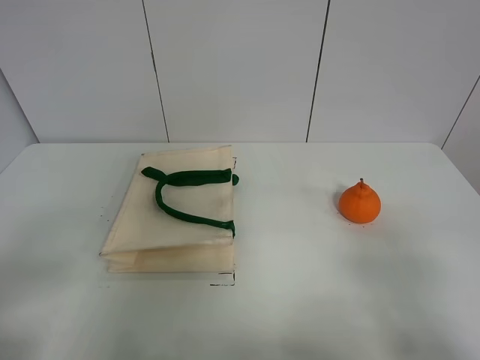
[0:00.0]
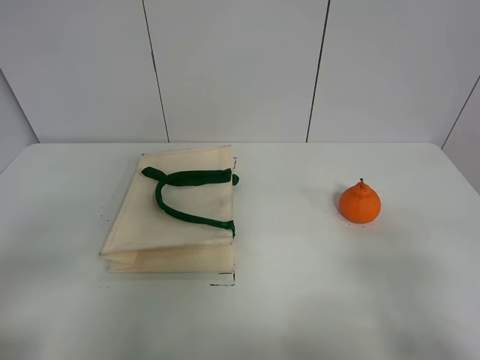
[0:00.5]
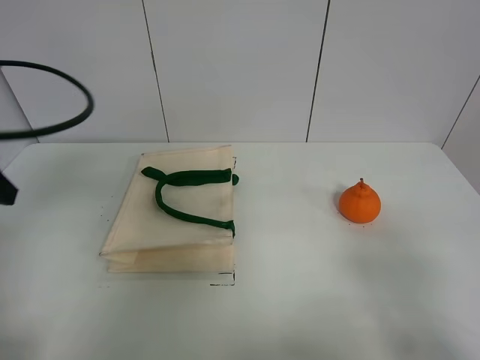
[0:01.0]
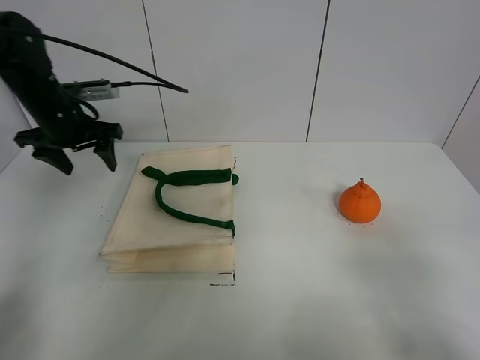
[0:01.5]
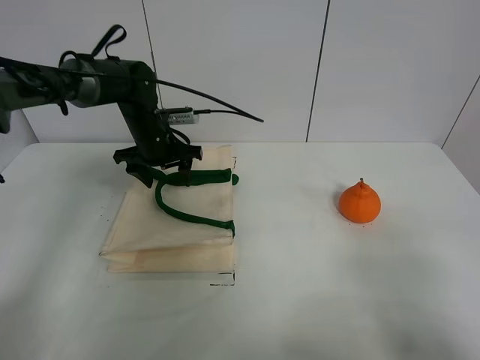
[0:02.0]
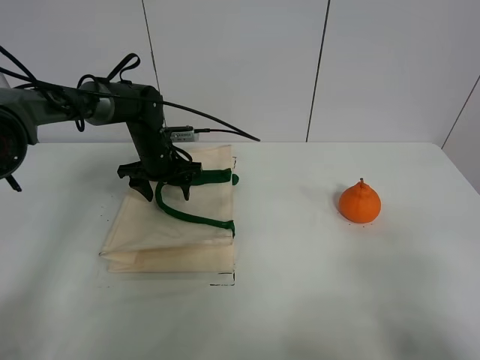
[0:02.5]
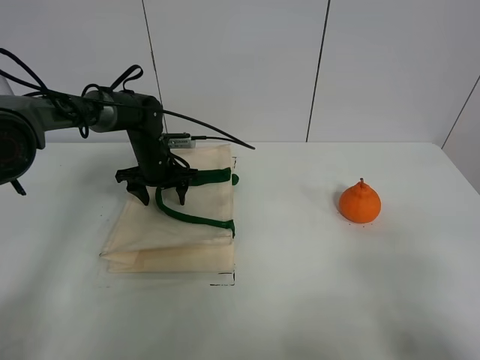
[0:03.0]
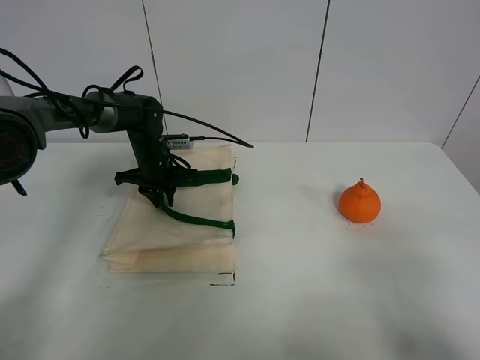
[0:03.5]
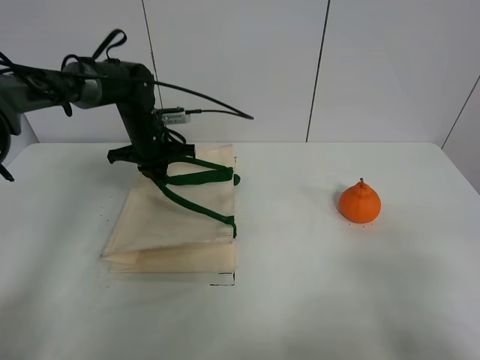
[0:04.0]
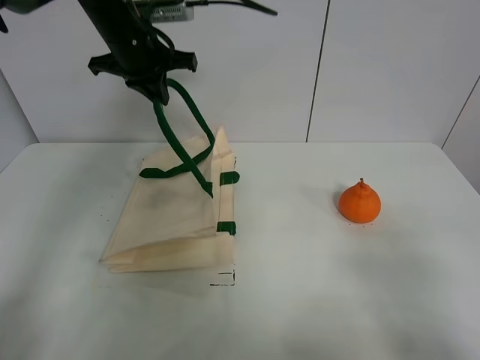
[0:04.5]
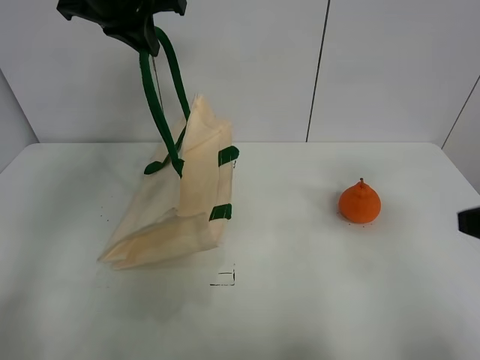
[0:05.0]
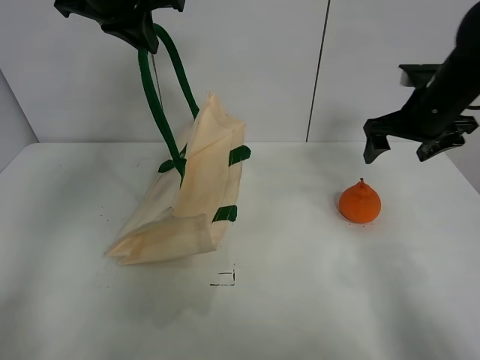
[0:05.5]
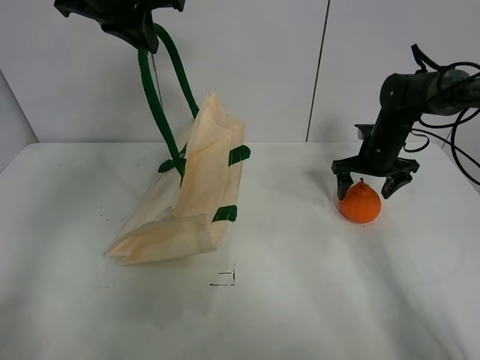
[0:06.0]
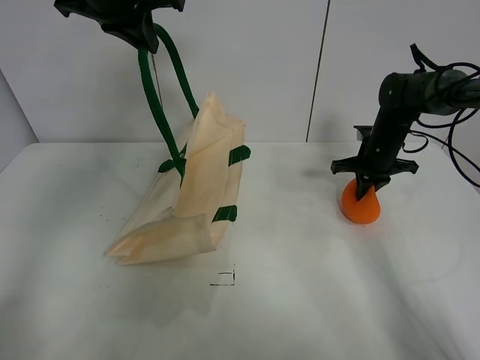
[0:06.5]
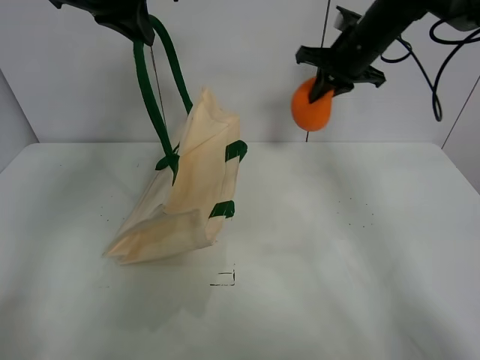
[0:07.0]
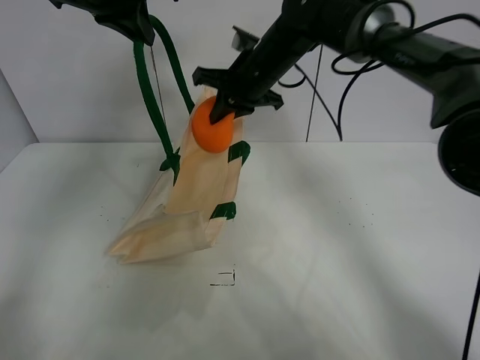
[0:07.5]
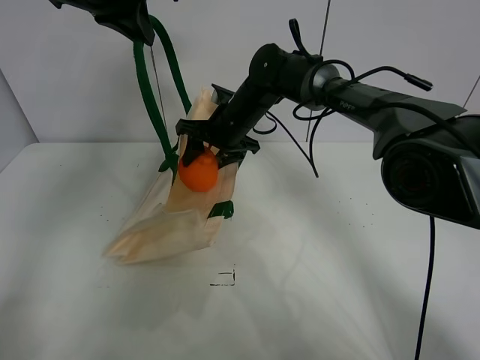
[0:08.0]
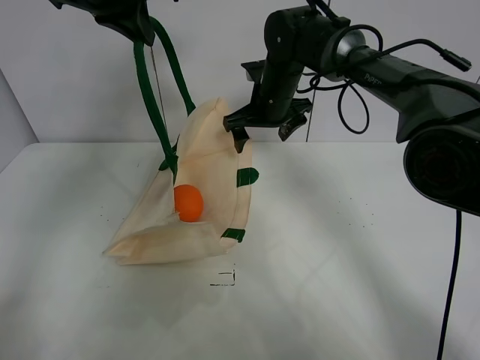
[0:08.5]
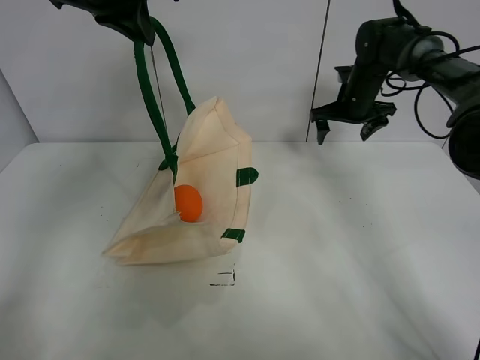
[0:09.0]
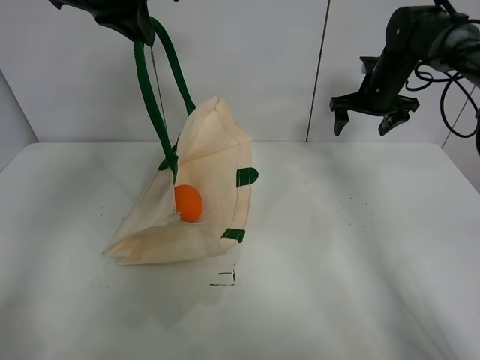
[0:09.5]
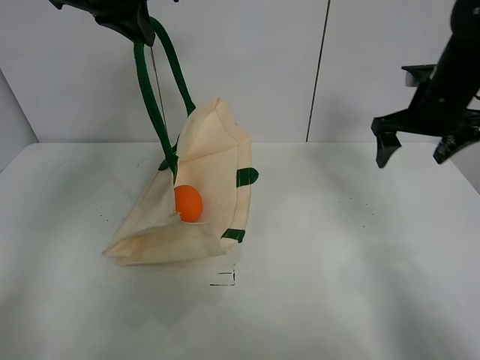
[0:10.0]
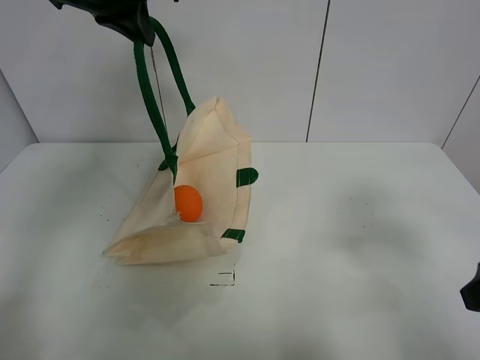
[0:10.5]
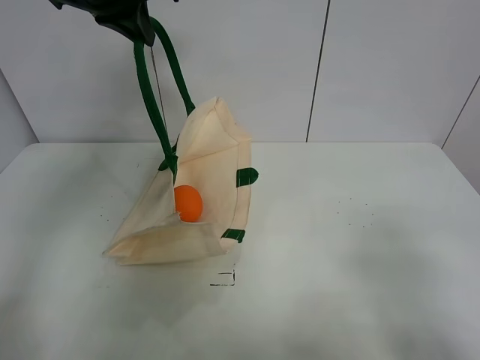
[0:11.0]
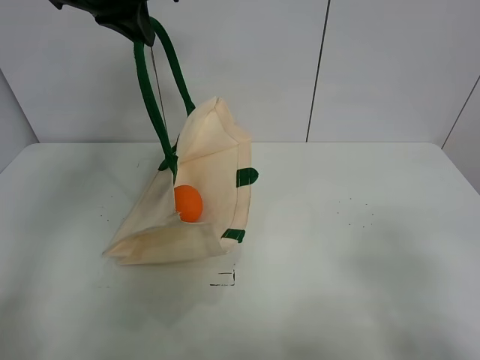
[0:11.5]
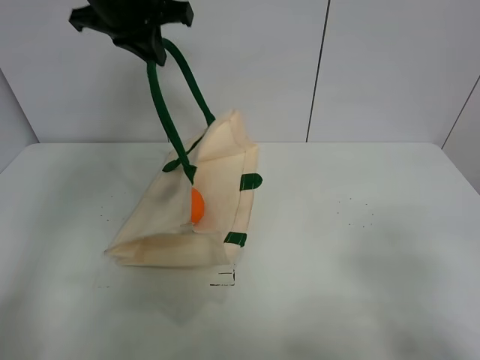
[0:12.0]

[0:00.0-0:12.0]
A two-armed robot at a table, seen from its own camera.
Task of the whole recording: open the white linen bag and put the orange in the bag.
Step, 0:00.0 to 0:04.5: Lift the handbag with left gripper.
Step, 0:05.0 to 0:06.0: Grasp the orange with right gripper.
Step, 0:06.5 to 0:08.0: Place the orange in the handbag with right gripper.
0:00.0 to 0:02.0: The left gripper heads forward, covering some 40 cm.
0:02.0 to 0:04.0: The left gripper closes its fingers.
0:04.0 to 0:06.0: The right gripper travels forward by approximately 40 cm, while the left gripper moves upward, about 25 cm.
0:06.0 to 0:08.0: The right gripper moves to the left, some 25 cm, and closes and opens again.
0:08.0 to 0:10.0: The right gripper is displaced to the right by approximately 30 cm.
0:10.0 to 0:12.0: The right gripper heads backward, covering roughly 35 cm; the left gripper ends up approximately 5 cm from where it was.

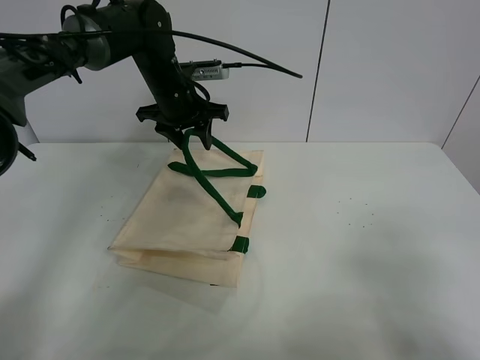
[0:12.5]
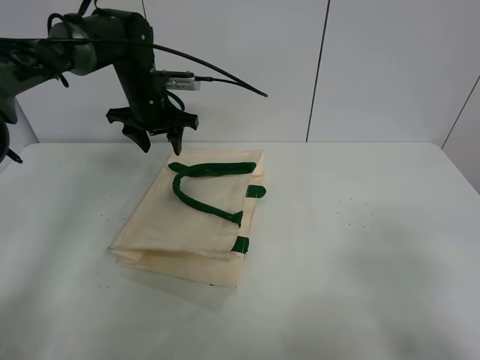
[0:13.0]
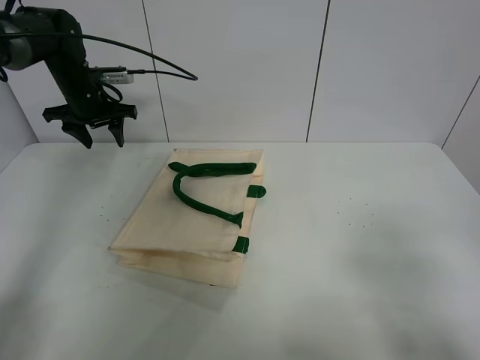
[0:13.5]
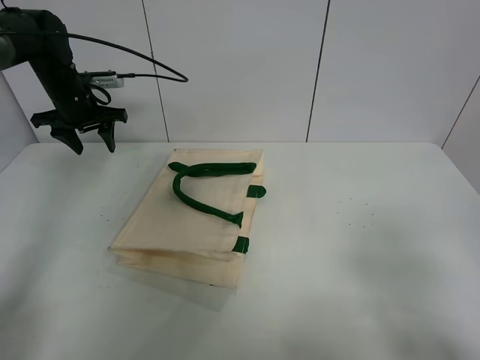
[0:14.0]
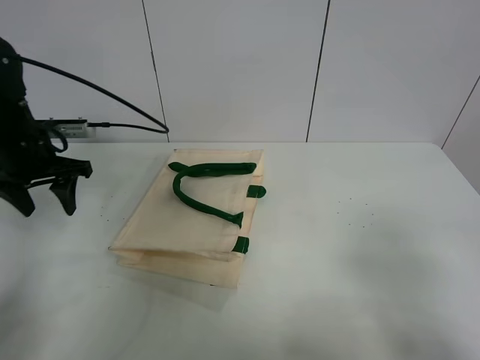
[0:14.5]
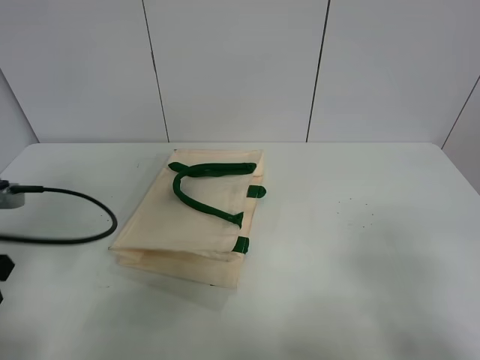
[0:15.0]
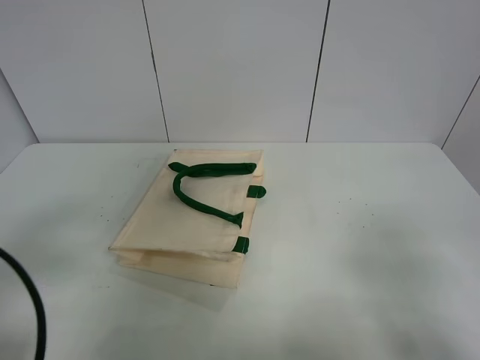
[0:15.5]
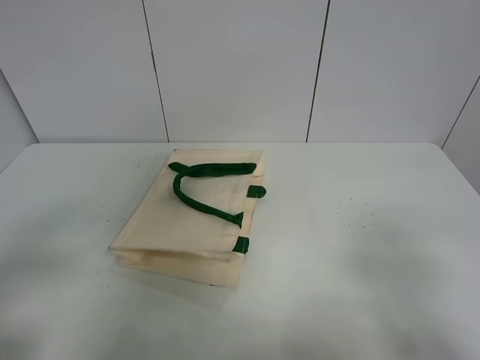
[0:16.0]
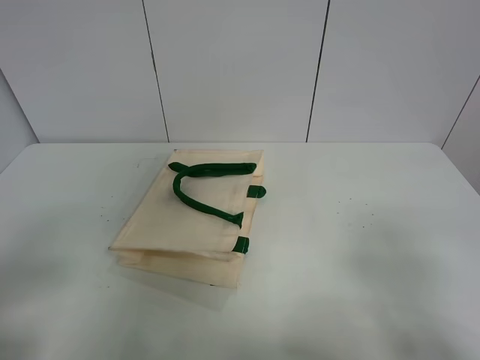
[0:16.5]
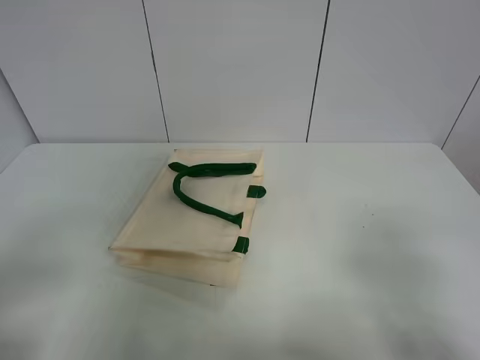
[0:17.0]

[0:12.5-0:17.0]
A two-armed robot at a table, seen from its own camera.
Task of the whole recording: open the white linen bag and put the orange in the bag.
0:12.5 to 0:14.5: The left gripper shifts approximately 25 cm to the left and backward.
0:14.5 to 0:17.0: The left gripper goes approximately 30 cm backward.
